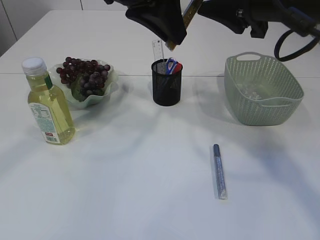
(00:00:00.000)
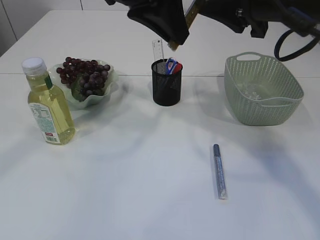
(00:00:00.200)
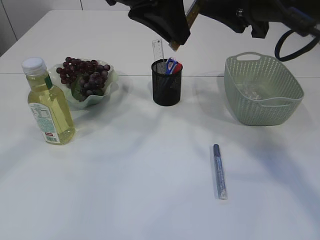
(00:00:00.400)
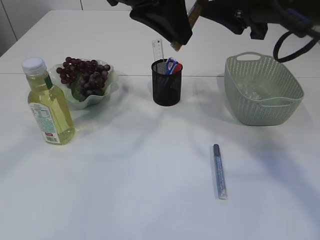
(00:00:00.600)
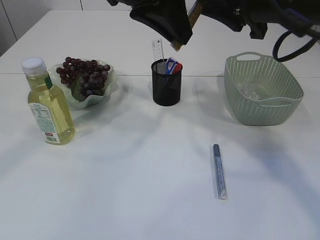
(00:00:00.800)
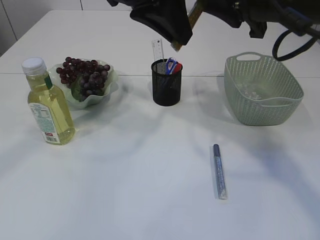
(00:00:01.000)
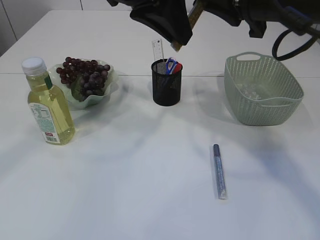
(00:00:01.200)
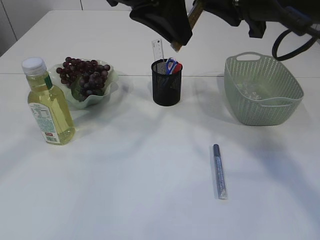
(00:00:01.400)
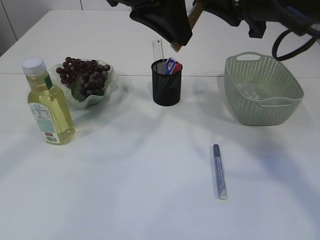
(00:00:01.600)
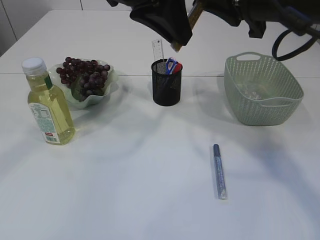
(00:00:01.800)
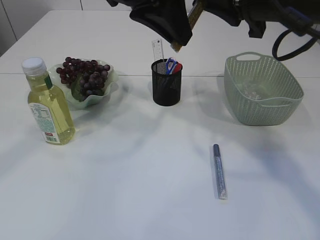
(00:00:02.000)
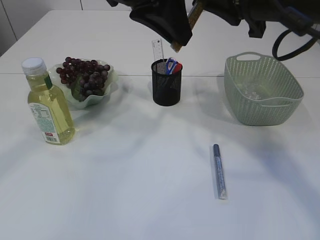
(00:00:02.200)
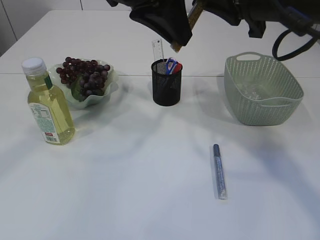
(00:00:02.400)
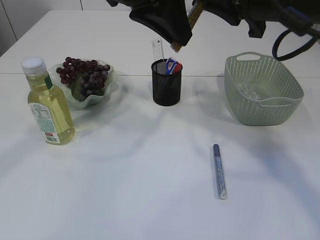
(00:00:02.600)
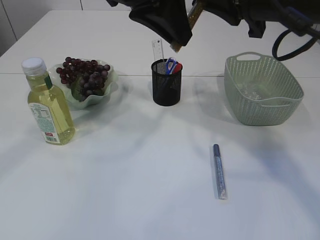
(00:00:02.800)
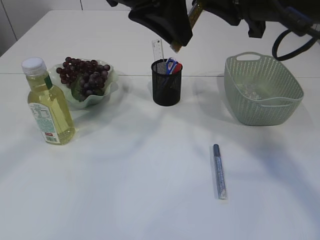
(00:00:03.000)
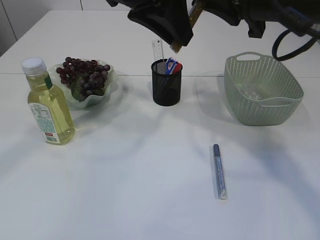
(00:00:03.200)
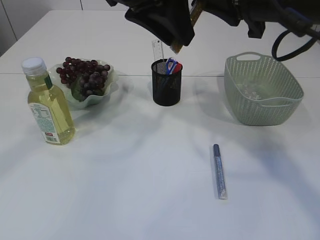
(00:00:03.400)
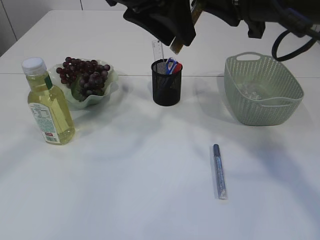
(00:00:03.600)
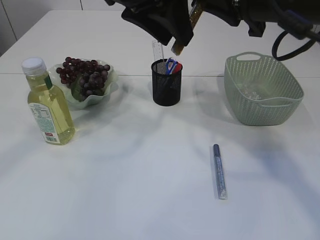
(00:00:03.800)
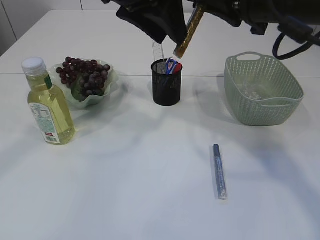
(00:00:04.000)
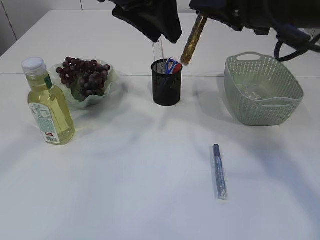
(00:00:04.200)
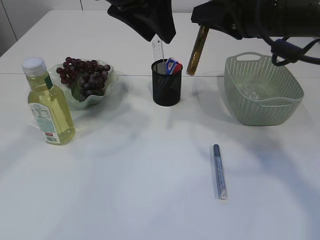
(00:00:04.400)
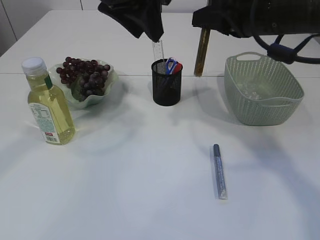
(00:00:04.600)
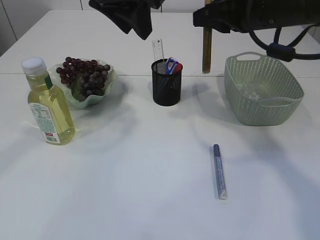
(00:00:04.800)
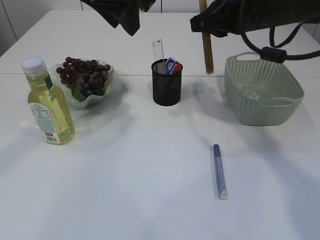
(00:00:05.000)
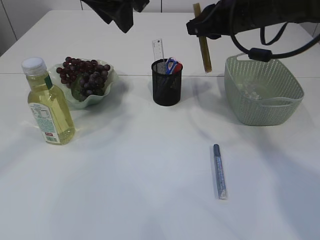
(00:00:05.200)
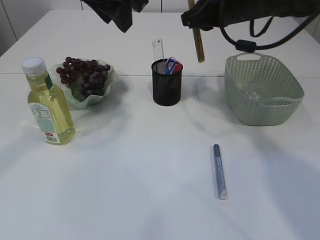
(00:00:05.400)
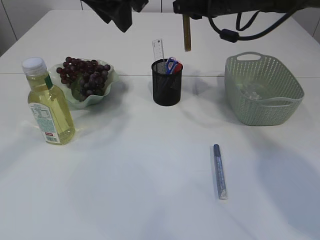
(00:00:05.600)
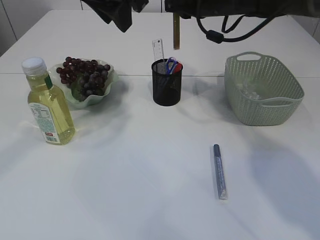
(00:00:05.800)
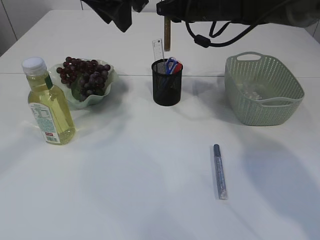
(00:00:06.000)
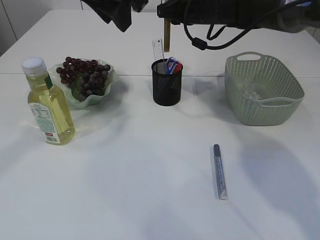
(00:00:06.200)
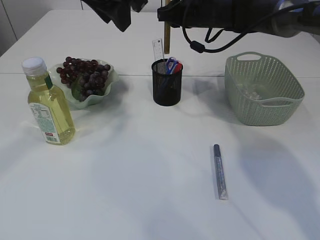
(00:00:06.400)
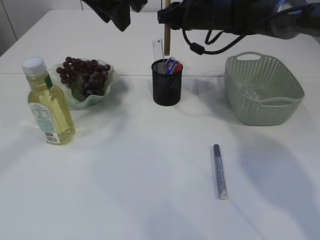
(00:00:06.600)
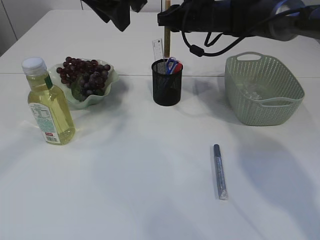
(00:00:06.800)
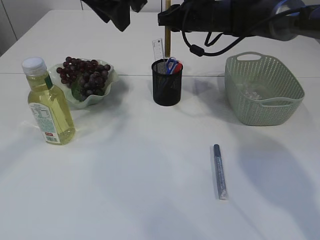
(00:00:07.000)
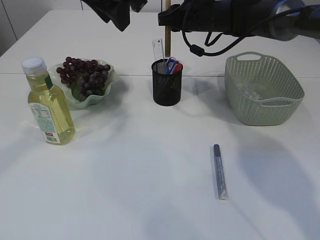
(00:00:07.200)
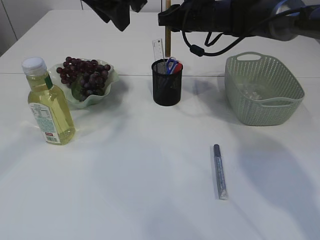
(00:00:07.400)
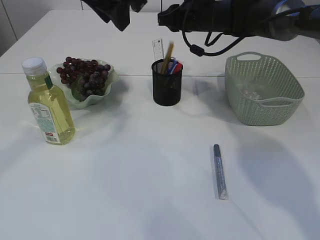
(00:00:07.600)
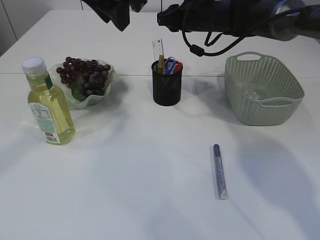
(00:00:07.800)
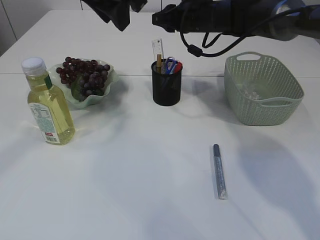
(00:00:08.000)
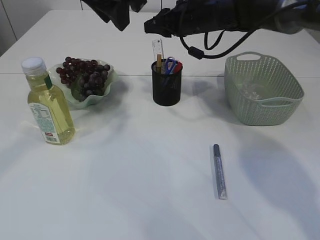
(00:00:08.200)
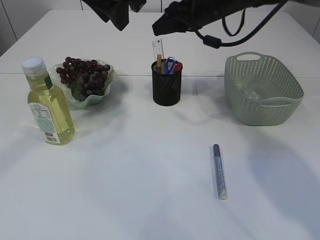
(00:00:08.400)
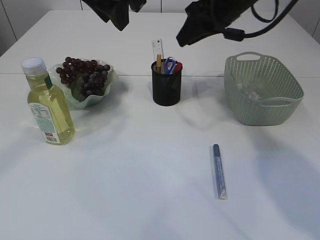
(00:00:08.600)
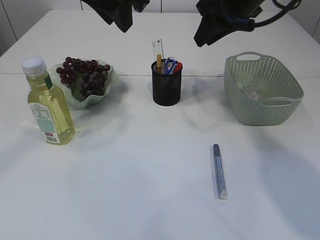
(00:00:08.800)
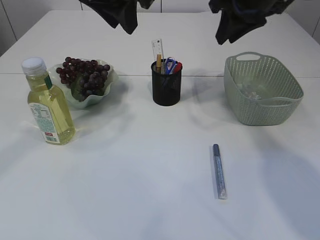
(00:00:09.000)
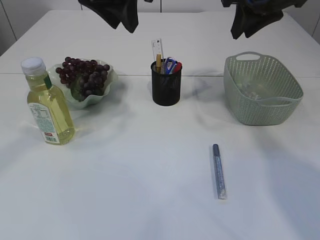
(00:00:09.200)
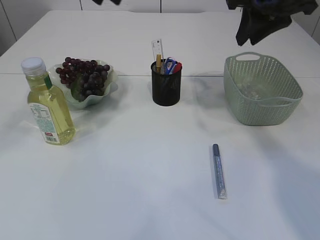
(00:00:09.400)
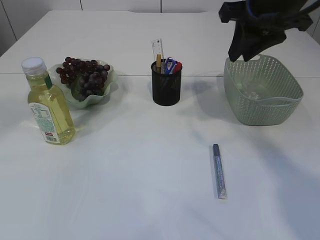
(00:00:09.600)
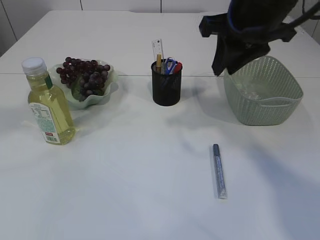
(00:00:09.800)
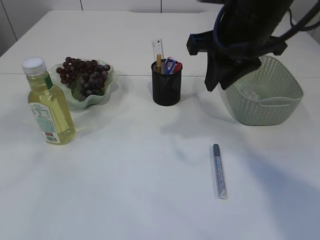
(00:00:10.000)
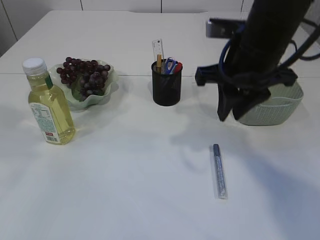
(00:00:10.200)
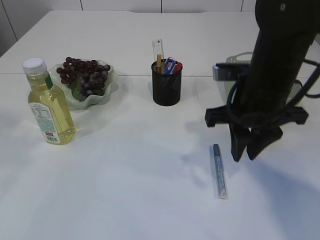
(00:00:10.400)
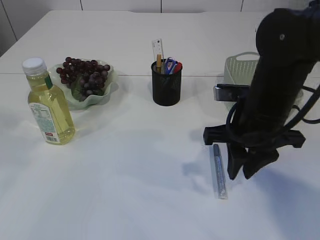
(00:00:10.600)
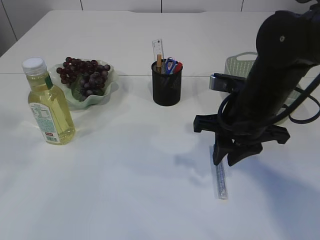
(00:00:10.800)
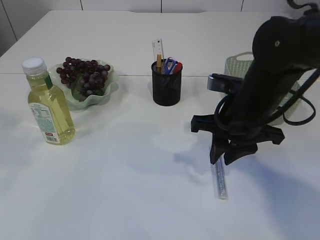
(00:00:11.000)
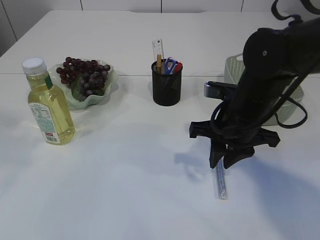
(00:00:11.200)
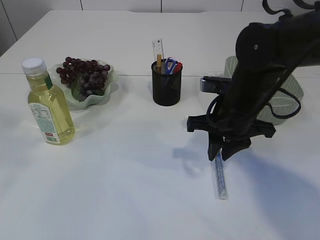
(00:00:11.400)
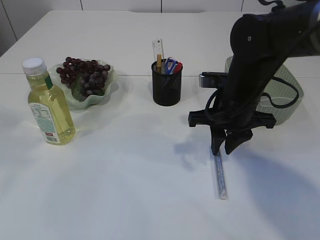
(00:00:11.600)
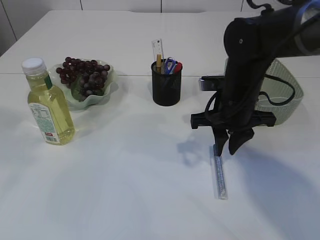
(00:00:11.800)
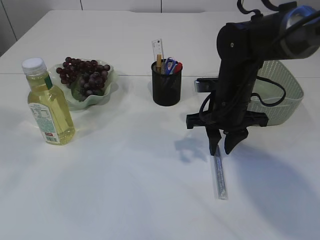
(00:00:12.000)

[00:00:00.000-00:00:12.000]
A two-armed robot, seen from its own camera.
Step, 00:00:00.000 to 00:00:04.800: Hand over the yellow glue.
Step, 00:00:05.000 to 00:00:08.200: place the yellow glue into the pen holder.
00:00:00.000 to 00:00:01.600: The right gripper closes up.
00:00:01.600 to 00:00:03.000: The two grippers keep their place.
00:00:03.000 to 00:00:04.400: There are only small adjustments of the grippers.
00:00:04.400 to 00:00:06.000: The right gripper goes roughly 15 cm forward.
00:00:06.000 to 00:00:07.600: The grippers move only a little.
00:00:07.600 to 00:00:09.000: The right gripper heads backward, upward and to the right, covering roughly 15 cm.
00:00:09.000 to 00:00:10.400: The left gripper shifts about 25 cm backward, to the left and upward. The right gripper goes roughly 15 cm backward and downward.
00:00:10.400 to 00:00:12.000: The right gripper moves downward and forward, roughly 10 cm.

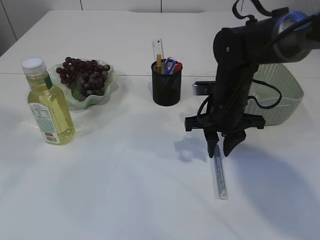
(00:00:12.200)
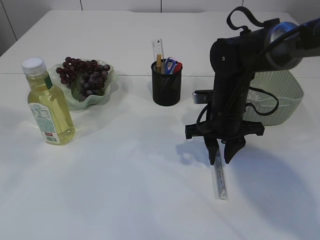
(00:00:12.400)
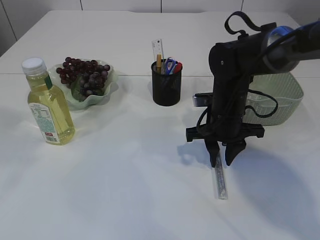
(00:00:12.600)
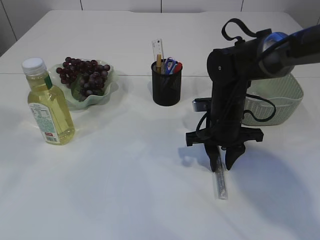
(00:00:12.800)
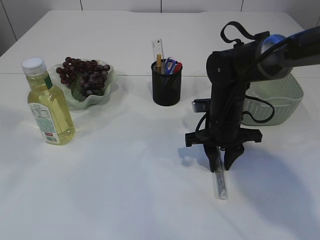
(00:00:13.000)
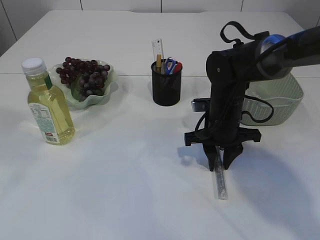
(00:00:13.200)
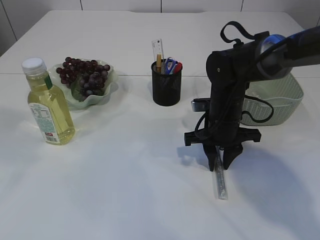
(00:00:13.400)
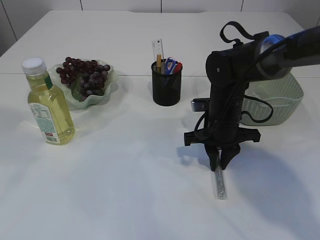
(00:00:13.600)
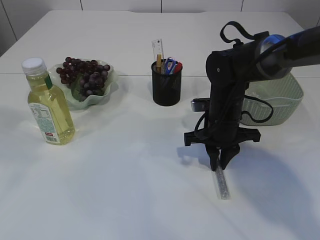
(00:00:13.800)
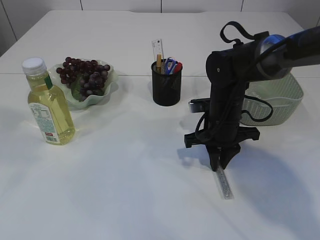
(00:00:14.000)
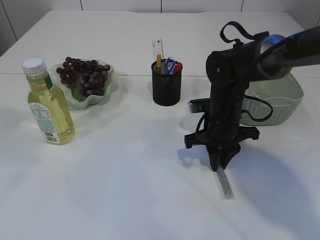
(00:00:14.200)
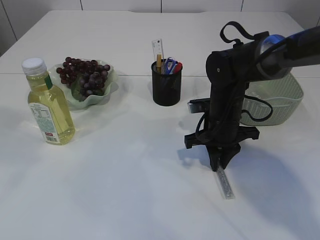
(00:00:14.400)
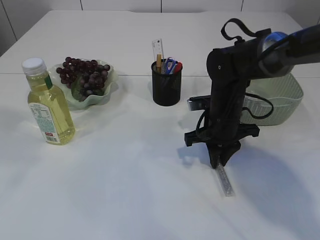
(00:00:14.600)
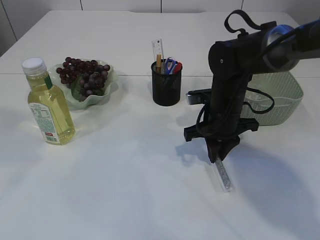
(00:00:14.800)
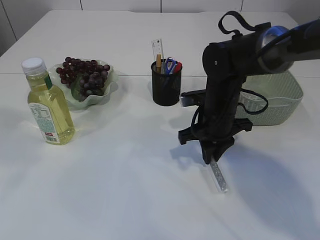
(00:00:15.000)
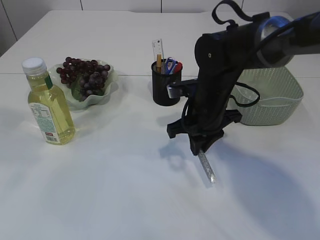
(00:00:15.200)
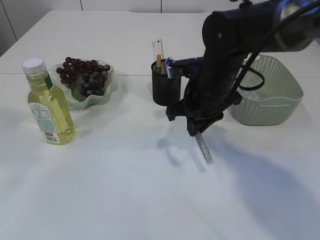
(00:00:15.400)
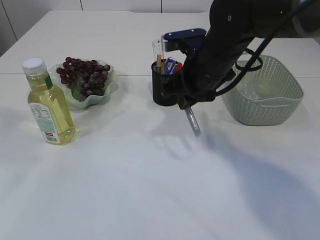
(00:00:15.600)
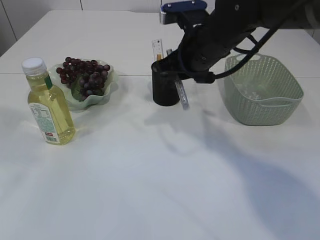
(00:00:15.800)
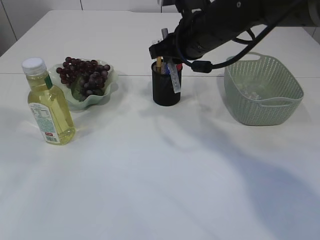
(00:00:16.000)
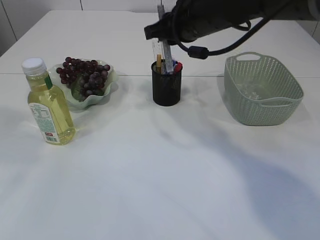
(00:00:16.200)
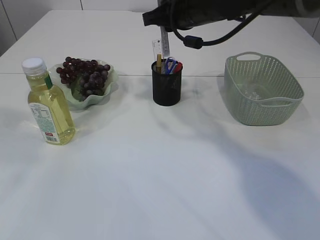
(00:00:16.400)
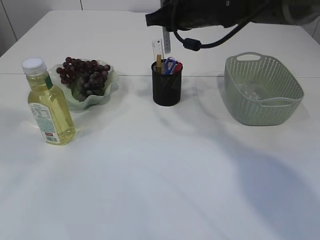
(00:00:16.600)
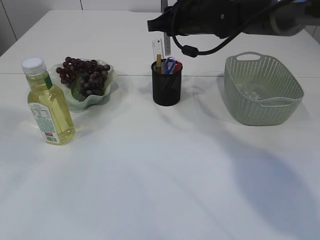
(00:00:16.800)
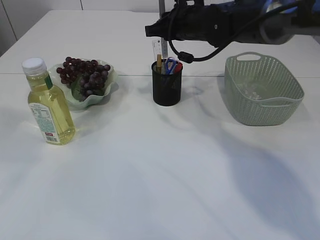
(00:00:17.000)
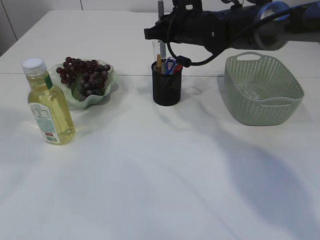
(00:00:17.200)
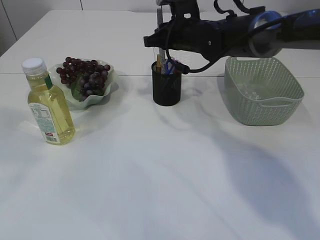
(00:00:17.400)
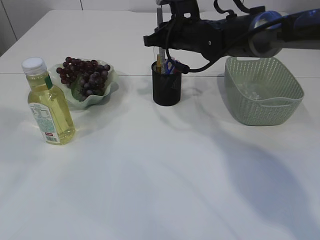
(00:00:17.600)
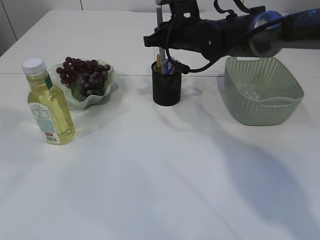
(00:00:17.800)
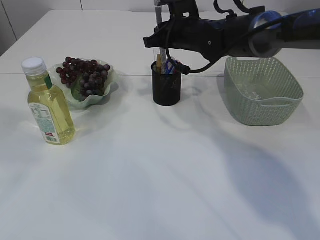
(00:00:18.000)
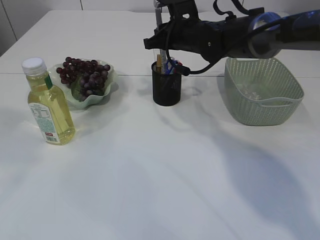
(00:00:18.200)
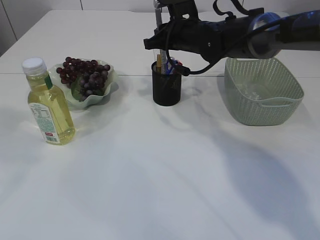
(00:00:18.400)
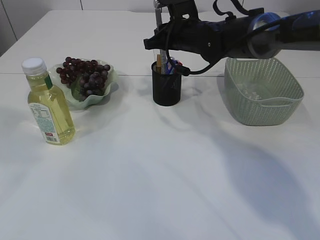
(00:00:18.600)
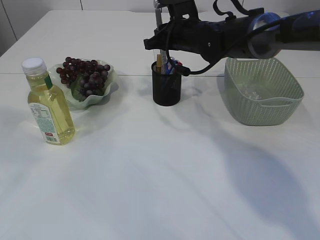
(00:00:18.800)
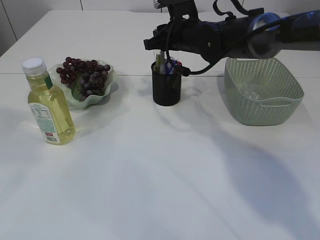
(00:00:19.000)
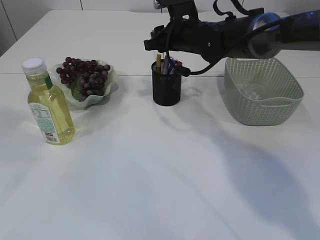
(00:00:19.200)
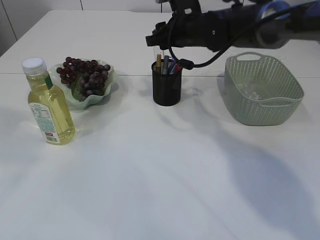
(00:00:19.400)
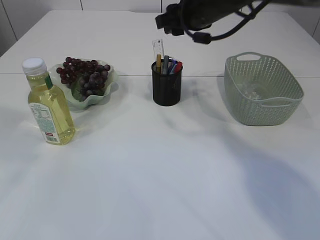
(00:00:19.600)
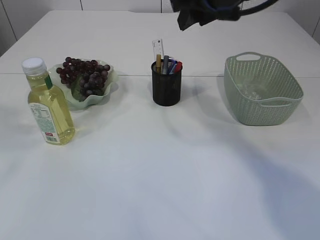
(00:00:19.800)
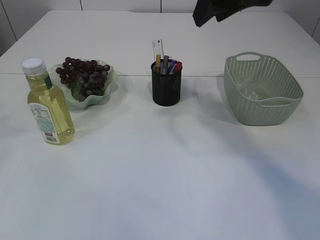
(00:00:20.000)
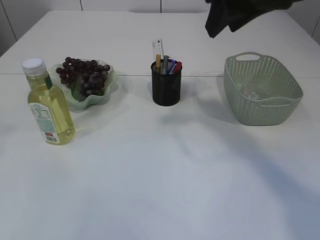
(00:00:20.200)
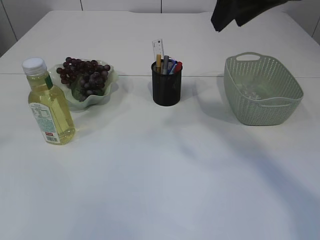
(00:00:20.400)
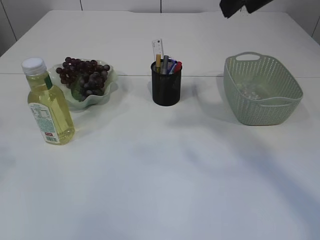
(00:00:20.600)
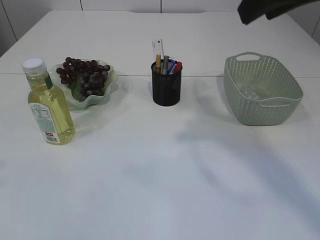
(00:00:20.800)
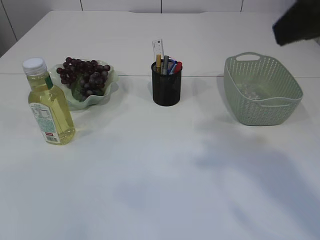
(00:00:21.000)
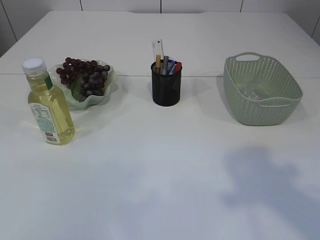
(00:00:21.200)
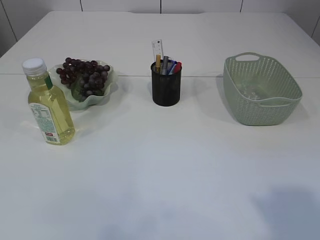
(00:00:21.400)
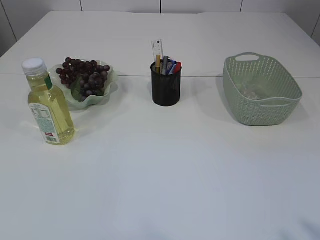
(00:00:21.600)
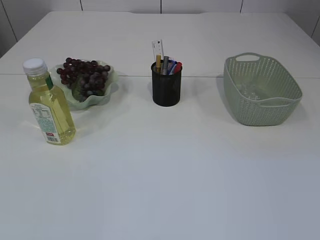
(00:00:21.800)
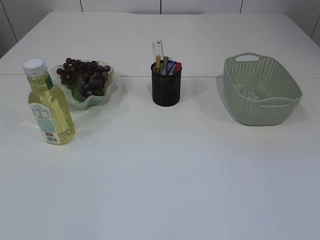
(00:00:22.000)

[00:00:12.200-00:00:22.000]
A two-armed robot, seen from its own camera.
Step, 00:00:12.200 to 00:00:15.400: pick up the silver glue.
Step, 00:00:15.600 to 00:00:19.800: place the silver glue into the pen holder.
00:00:12.200 to 00:00:15.000: The grippers make only small movements.
00:00:15.000 to 00:00:16.400: The right gripper is displaced upward by some 15 cm.
00:00:16.400 to 00:00:17.800: The right gripper shifts some 10 cm downward and forward.
00:00:17.800 to 00:00:19.200: The right gripper opens.
00:00:19.200 to 00:00:20.600: The left gripper shifts some 5 cm to the left. Meanwhile the right gripper travels upward and backward by about 30 cm.
00:00:20.600 to 00:00:22.000: The left gripper shifts some 25 cm backward and downward; the right gripper travels backward and to the right by roughly 35 cm.
